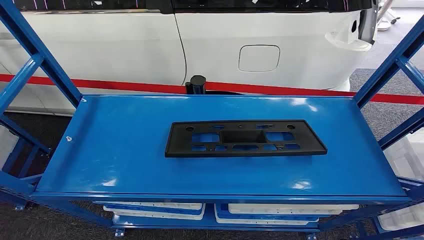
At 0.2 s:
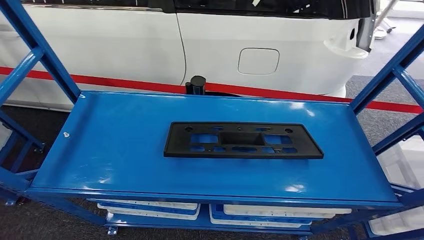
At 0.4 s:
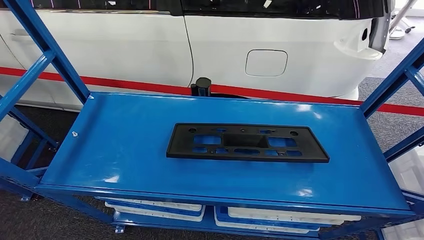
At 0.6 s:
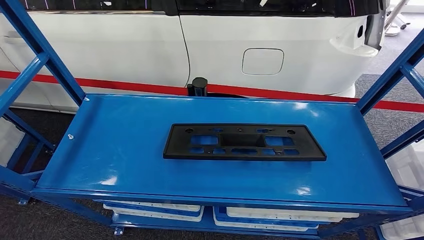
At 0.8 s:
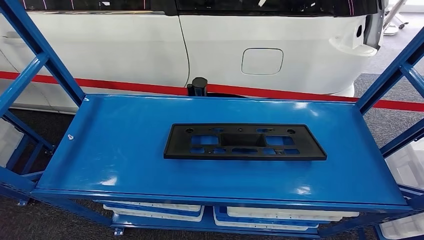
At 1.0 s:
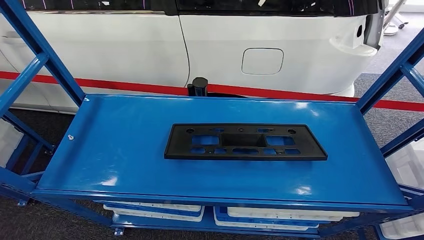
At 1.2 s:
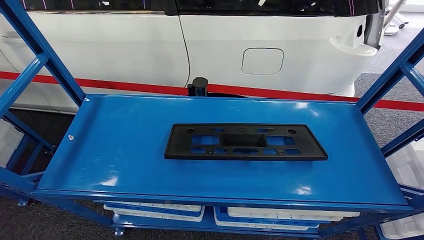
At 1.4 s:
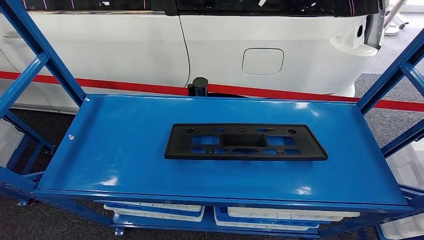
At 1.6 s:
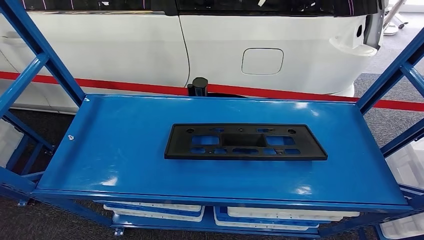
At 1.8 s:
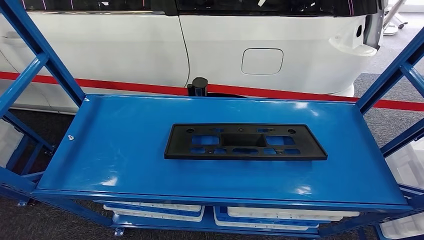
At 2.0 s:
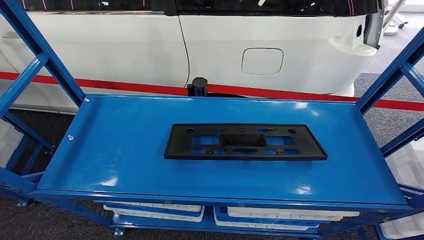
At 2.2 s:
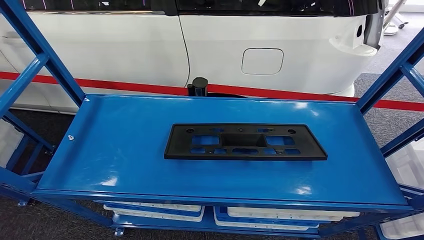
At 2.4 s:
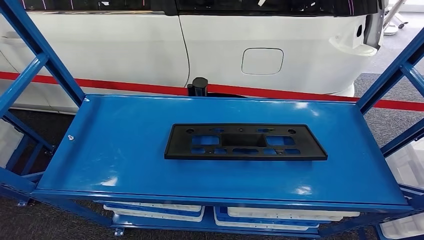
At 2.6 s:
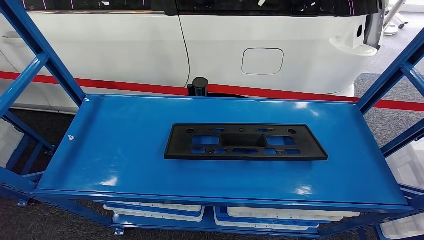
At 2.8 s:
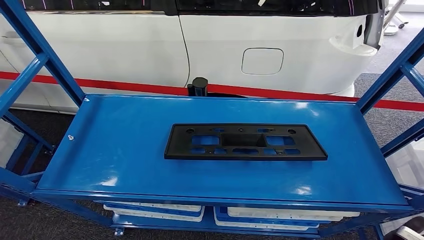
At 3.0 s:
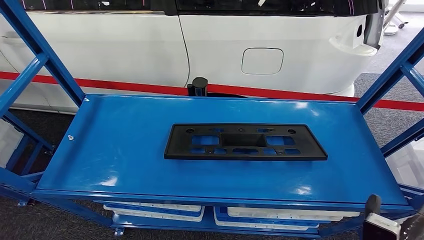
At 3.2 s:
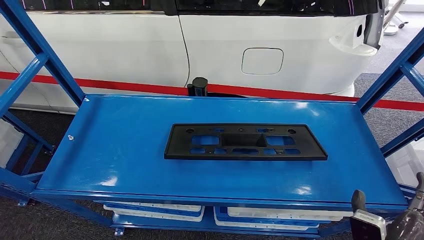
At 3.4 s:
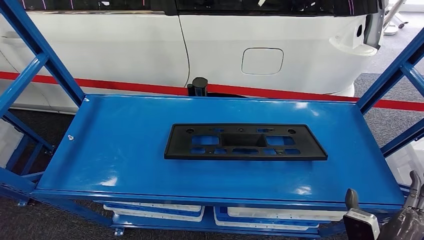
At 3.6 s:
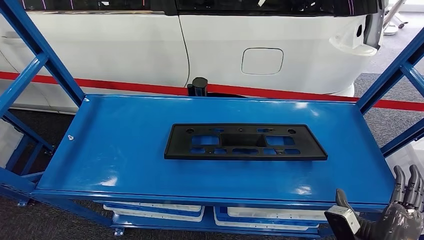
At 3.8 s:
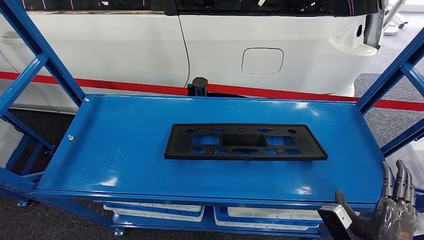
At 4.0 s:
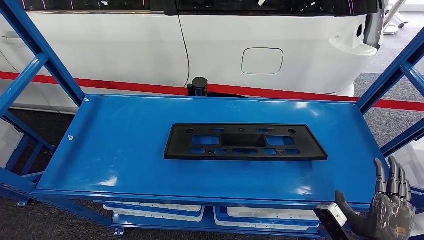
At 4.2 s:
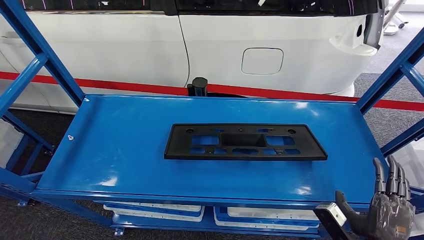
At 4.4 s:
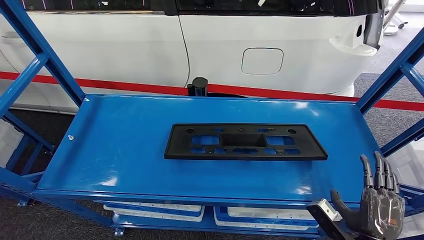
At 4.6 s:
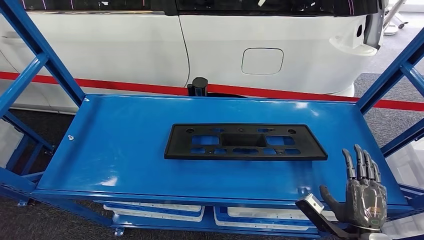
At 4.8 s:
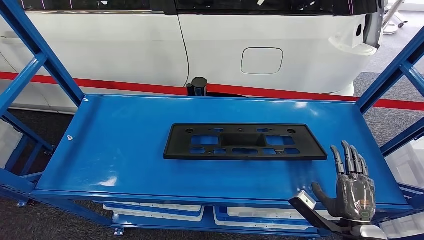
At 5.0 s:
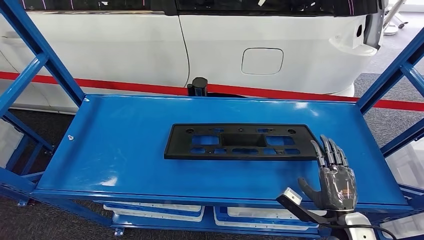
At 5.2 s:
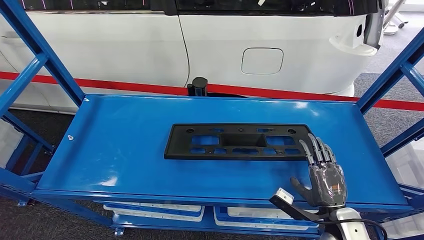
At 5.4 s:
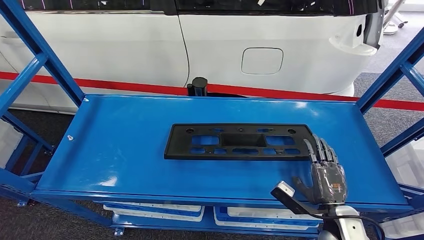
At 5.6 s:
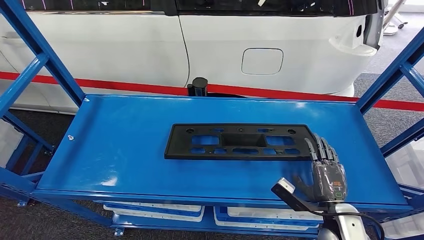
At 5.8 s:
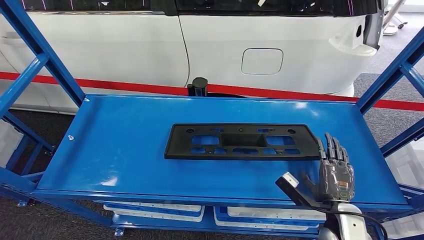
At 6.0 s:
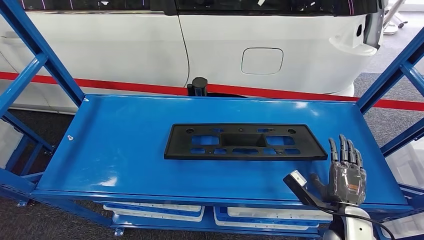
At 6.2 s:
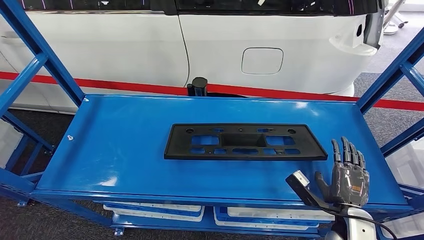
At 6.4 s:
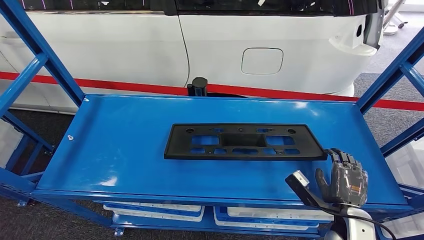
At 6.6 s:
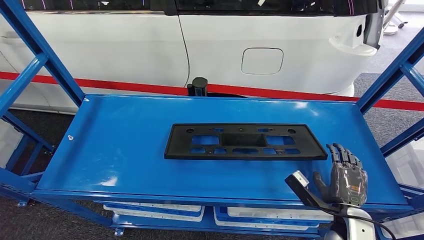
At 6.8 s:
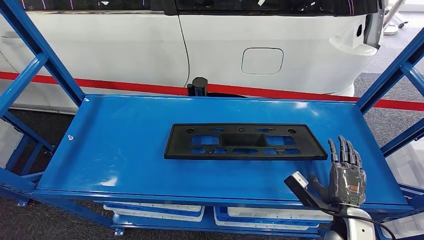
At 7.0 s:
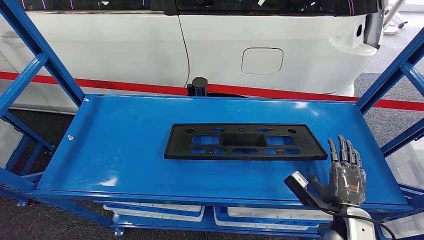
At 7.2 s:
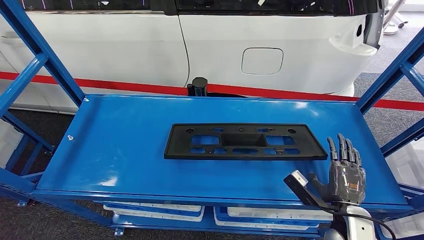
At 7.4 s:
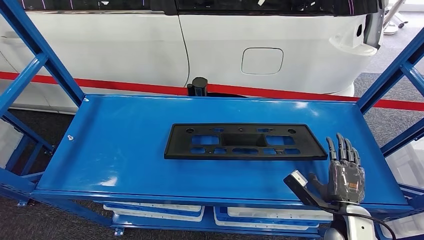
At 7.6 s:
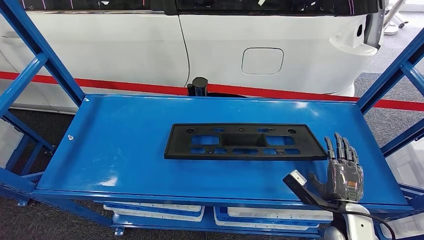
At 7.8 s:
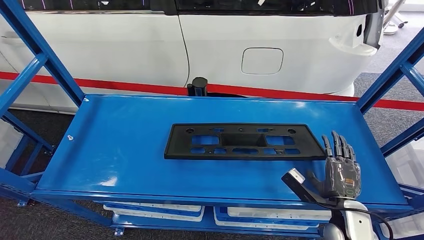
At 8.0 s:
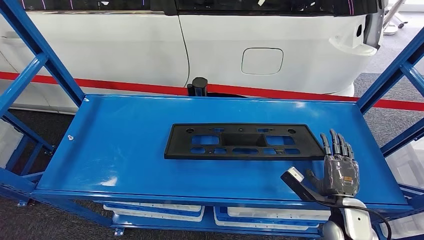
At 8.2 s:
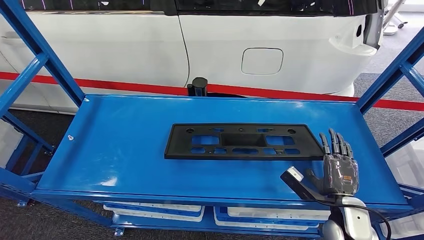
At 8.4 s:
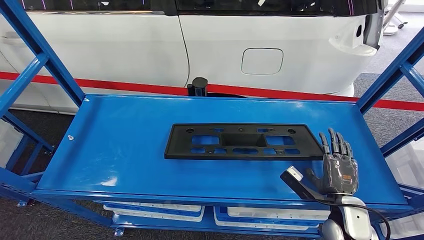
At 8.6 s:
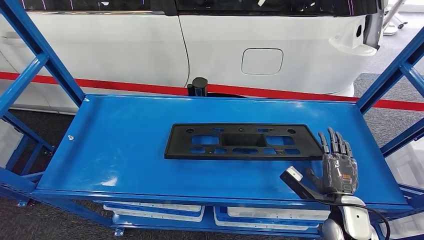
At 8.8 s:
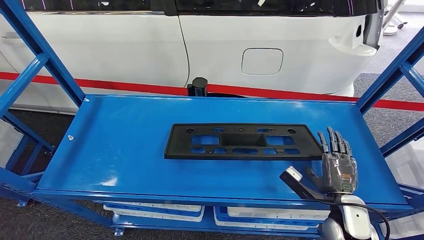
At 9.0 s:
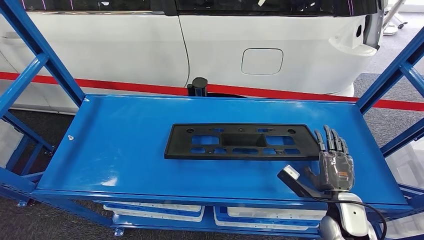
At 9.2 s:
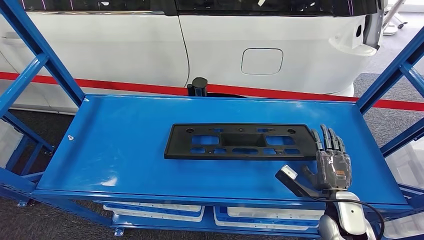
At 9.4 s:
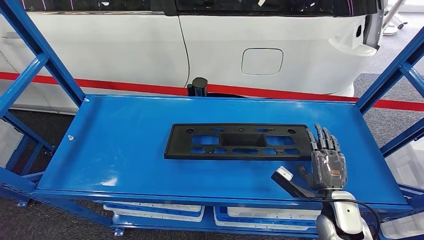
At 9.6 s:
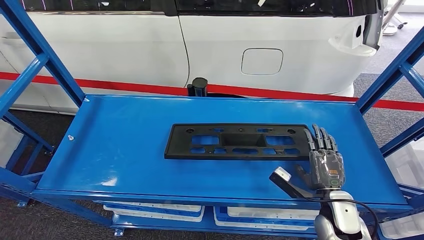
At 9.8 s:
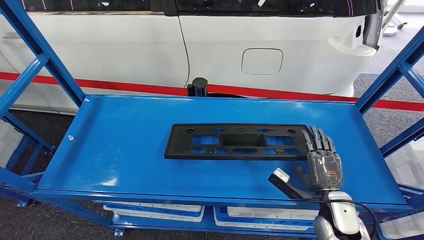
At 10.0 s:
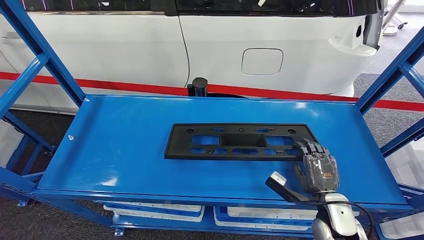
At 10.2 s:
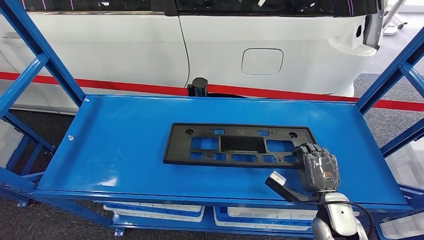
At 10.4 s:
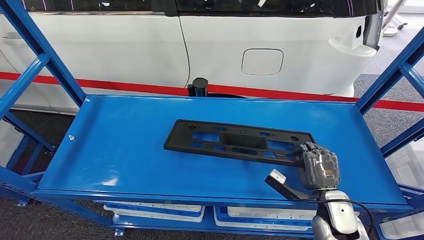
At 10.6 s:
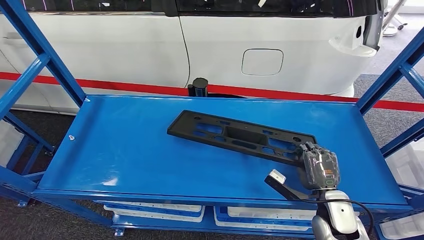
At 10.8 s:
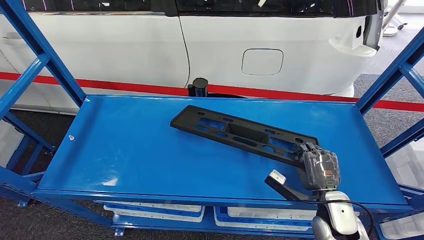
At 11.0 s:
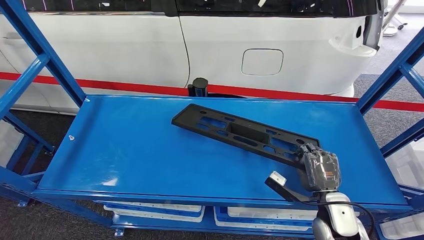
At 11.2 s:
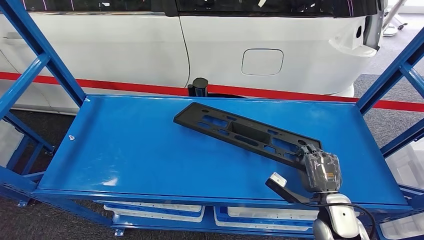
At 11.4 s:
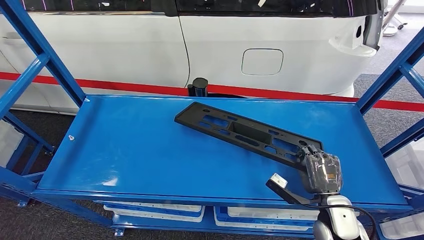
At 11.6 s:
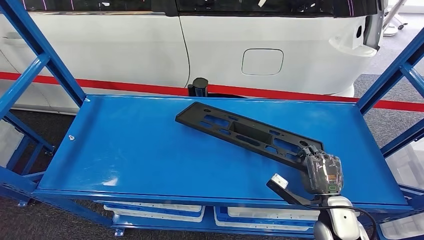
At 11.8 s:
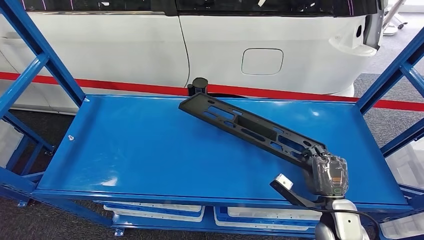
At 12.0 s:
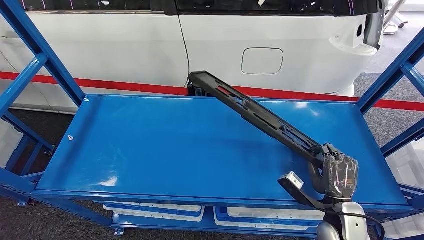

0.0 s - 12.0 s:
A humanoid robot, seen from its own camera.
1.6 s - 3.0 s: The right hand is displaced upward and forward by roughly 20 cm.
4.4 s - 6.0 s: The right hand is displaced forward by approximately 5 cm.
6.0 s - 7.6 s: Both hands stay put.
7.6 s - 12.0 s: The hands stay close to where they were, moving slightly.

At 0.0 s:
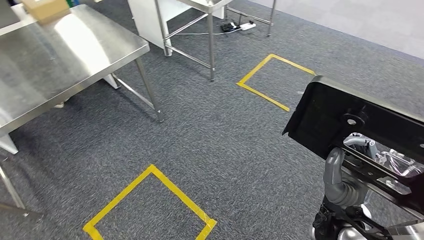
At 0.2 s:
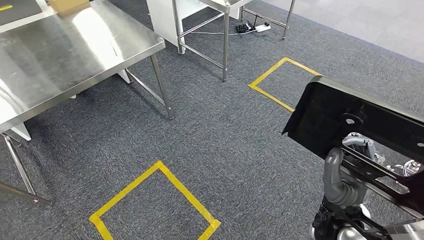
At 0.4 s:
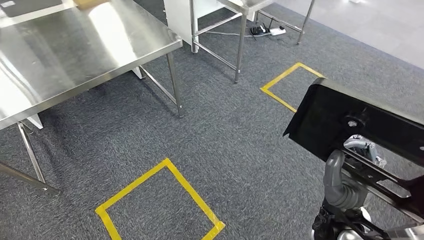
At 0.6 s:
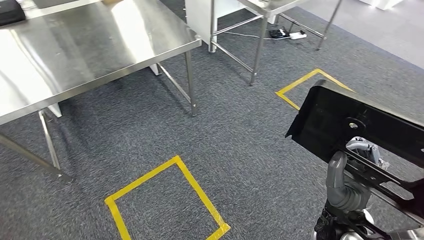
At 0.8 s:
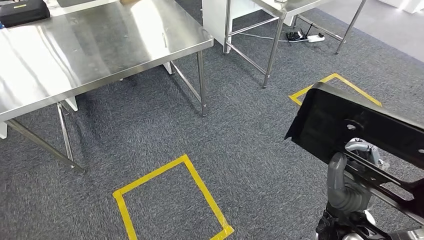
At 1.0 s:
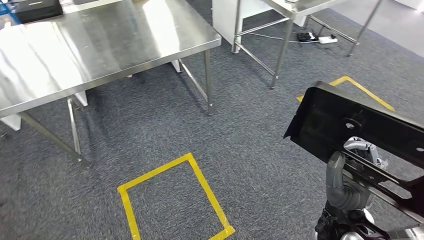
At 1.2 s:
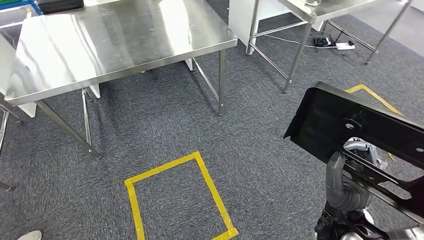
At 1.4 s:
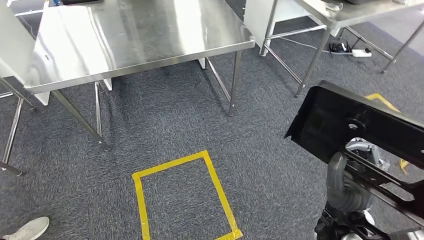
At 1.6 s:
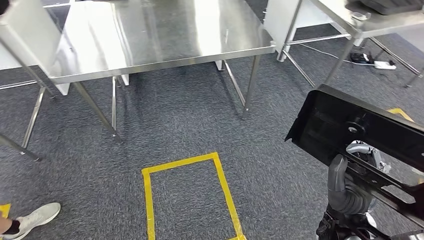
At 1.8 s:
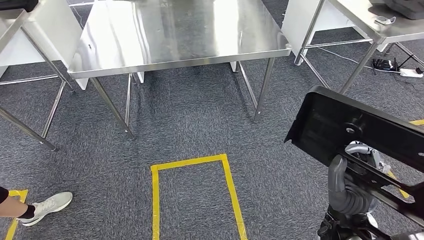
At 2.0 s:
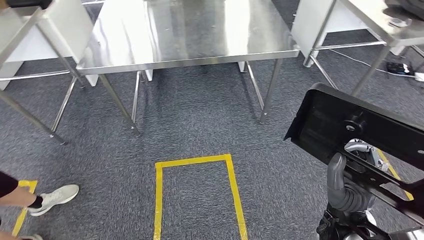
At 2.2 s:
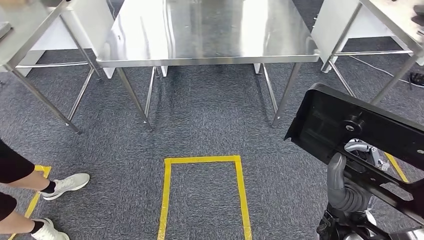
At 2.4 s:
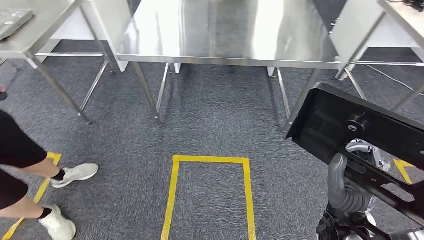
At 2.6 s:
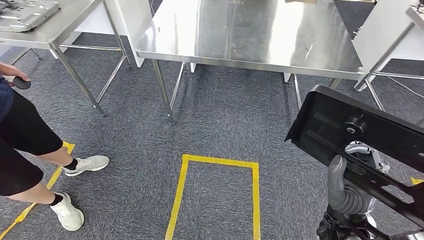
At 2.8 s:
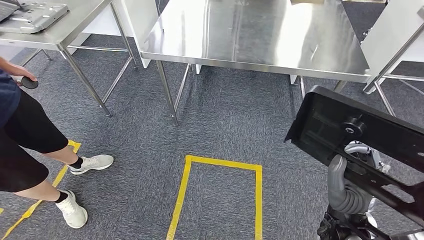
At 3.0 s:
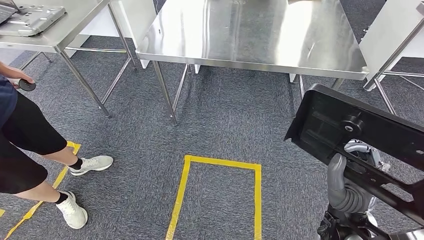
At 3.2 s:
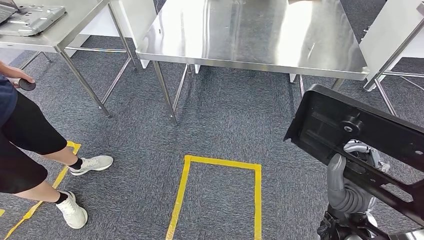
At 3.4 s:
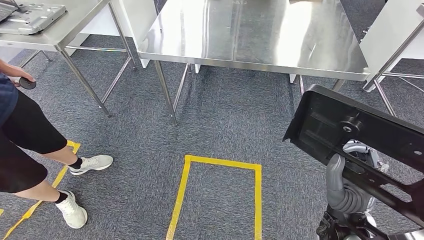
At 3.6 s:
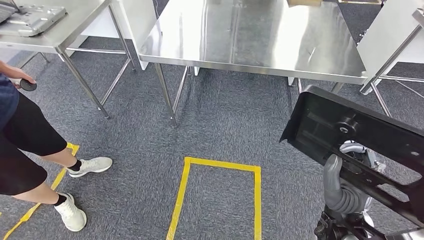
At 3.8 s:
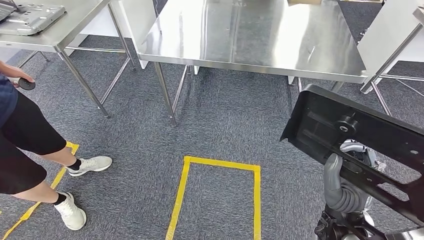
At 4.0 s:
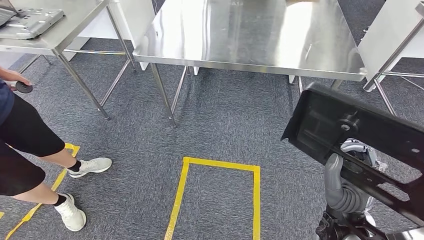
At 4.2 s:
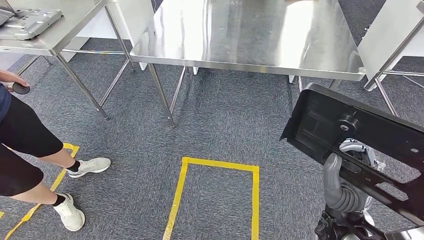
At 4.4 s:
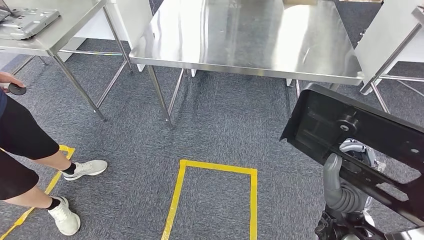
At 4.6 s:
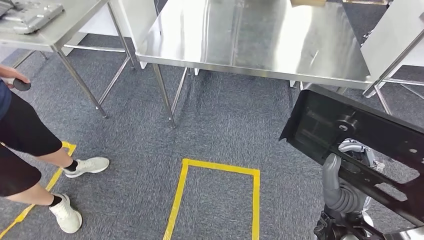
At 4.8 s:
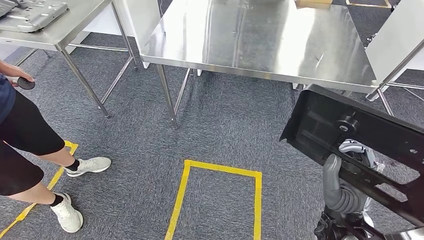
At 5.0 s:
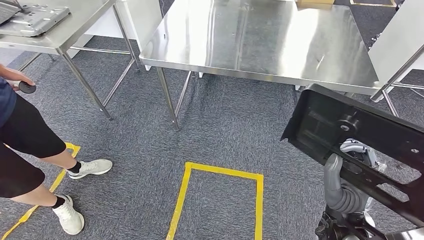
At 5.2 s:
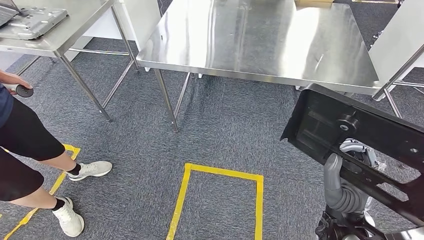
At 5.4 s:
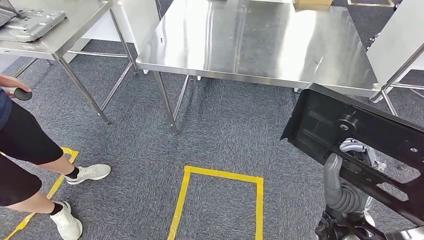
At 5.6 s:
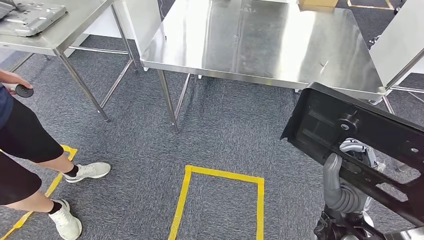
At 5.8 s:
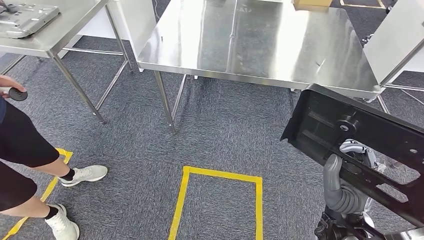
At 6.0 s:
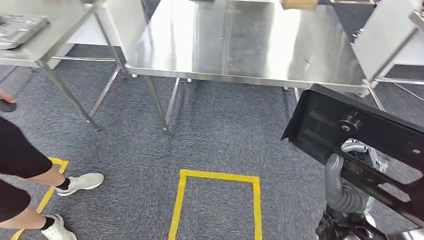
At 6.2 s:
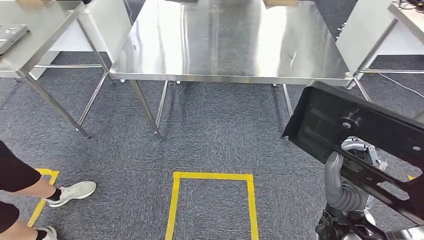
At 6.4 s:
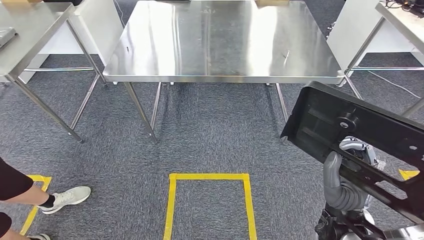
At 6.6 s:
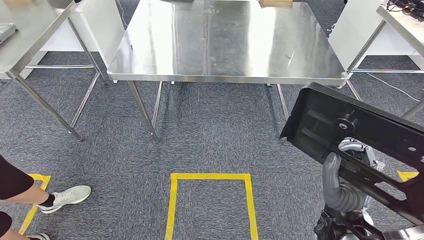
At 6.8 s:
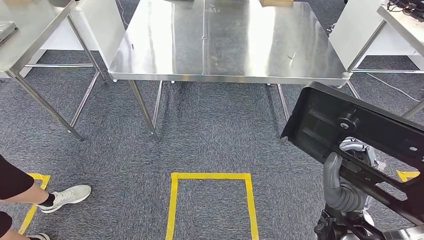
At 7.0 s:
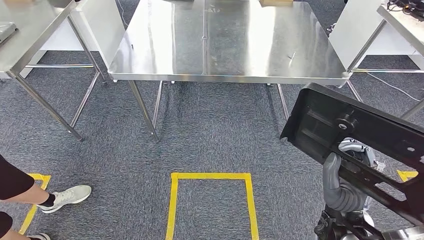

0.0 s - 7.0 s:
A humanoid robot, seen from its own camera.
2.8 s - 4.2 s: Both hands stay put.
